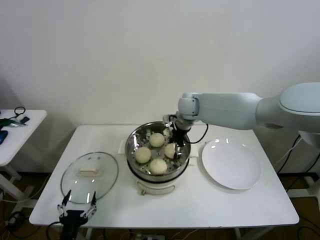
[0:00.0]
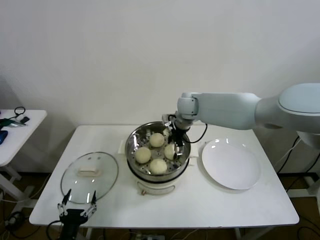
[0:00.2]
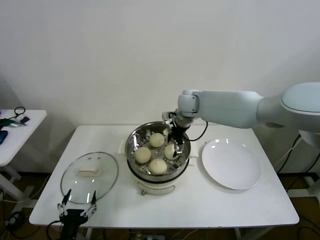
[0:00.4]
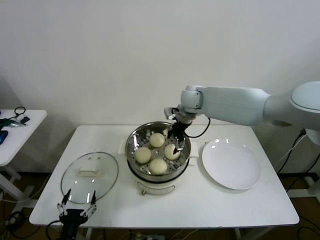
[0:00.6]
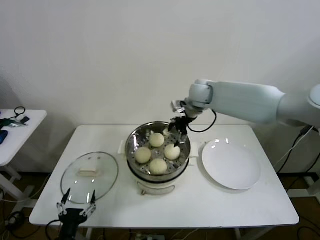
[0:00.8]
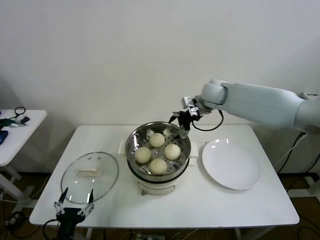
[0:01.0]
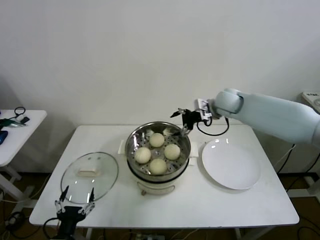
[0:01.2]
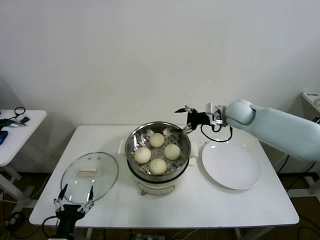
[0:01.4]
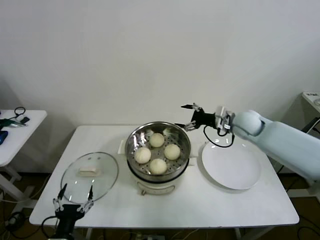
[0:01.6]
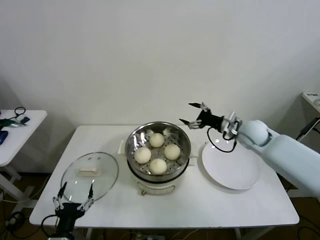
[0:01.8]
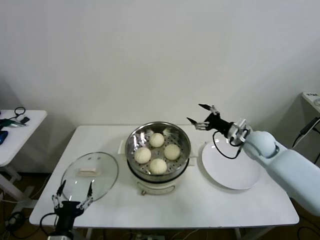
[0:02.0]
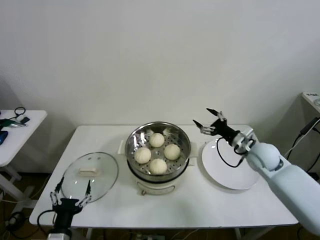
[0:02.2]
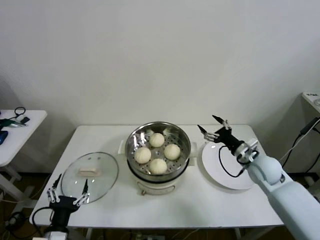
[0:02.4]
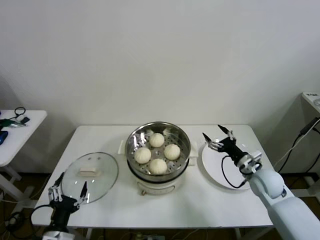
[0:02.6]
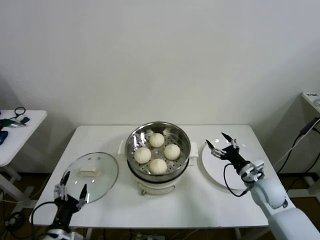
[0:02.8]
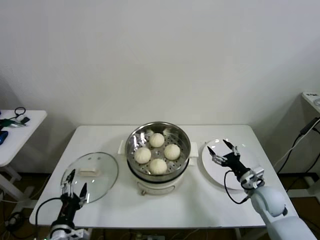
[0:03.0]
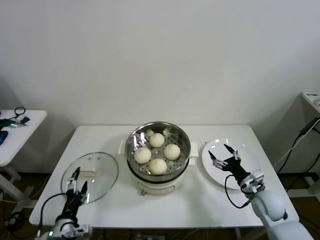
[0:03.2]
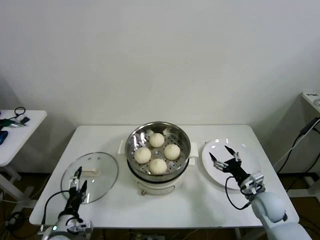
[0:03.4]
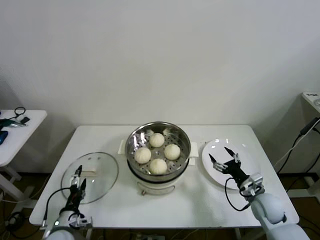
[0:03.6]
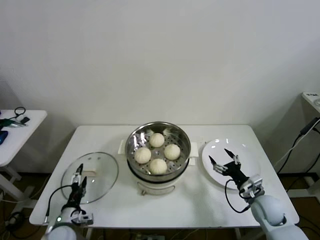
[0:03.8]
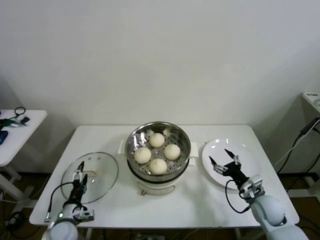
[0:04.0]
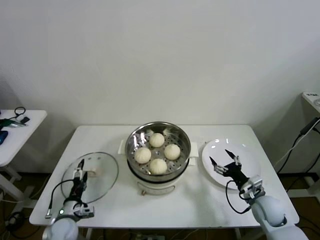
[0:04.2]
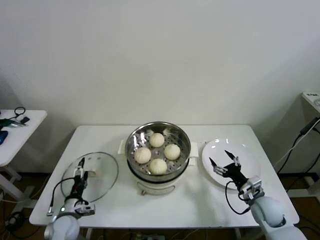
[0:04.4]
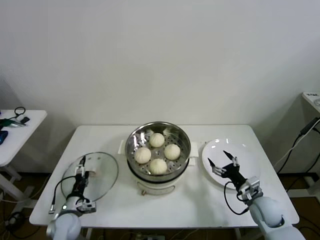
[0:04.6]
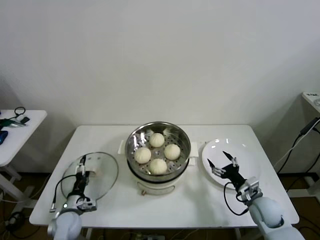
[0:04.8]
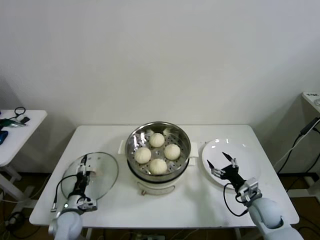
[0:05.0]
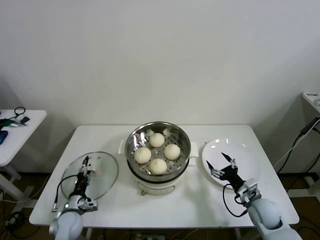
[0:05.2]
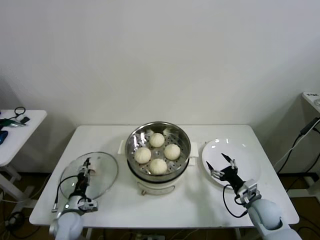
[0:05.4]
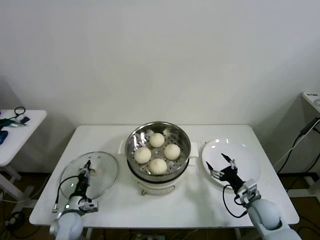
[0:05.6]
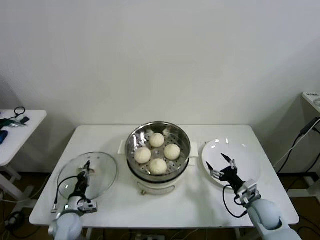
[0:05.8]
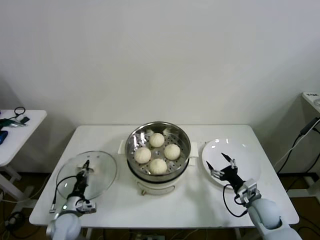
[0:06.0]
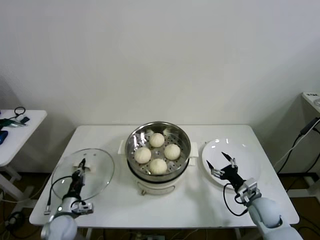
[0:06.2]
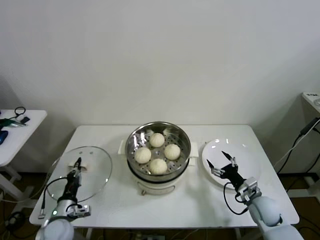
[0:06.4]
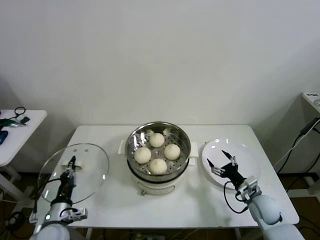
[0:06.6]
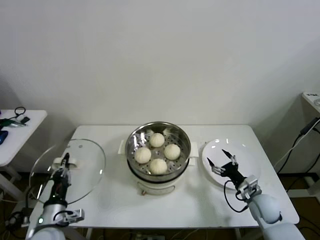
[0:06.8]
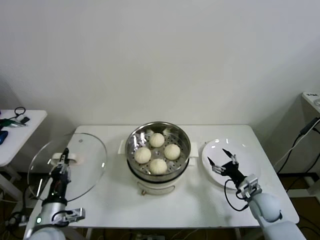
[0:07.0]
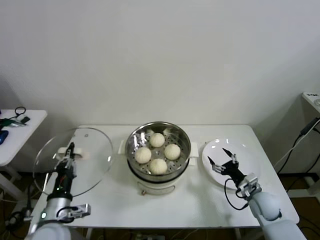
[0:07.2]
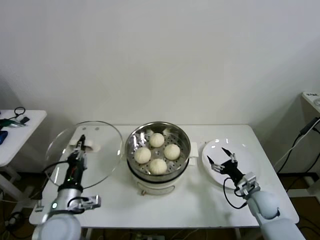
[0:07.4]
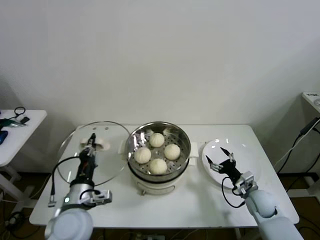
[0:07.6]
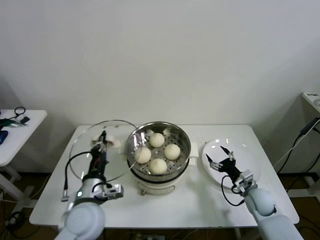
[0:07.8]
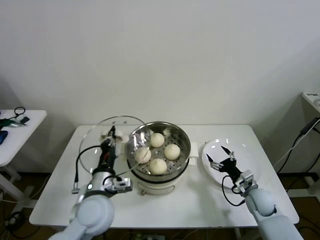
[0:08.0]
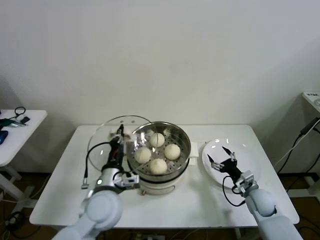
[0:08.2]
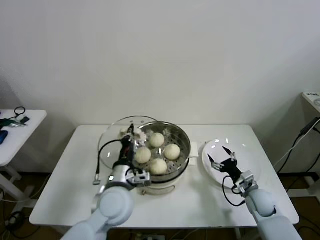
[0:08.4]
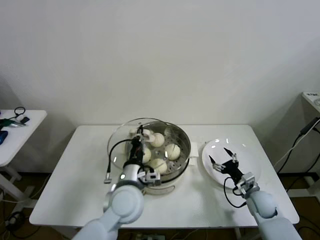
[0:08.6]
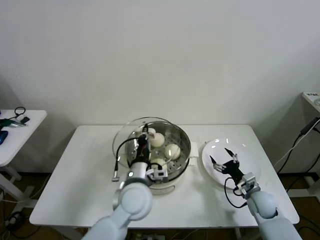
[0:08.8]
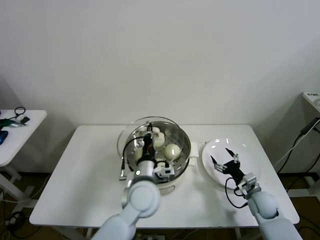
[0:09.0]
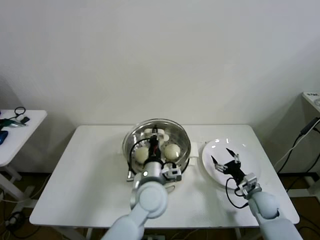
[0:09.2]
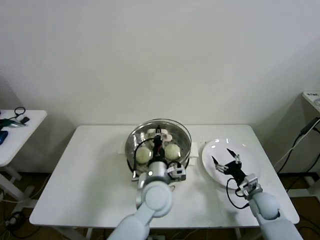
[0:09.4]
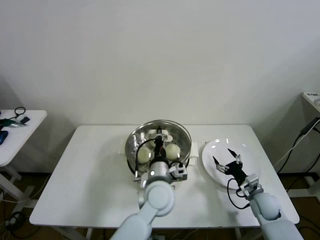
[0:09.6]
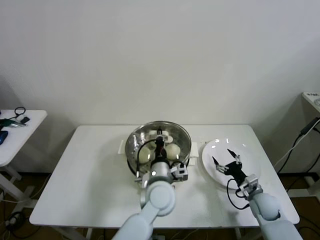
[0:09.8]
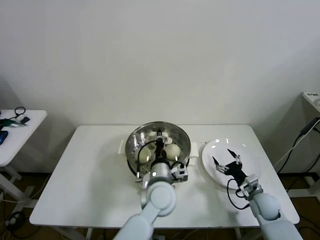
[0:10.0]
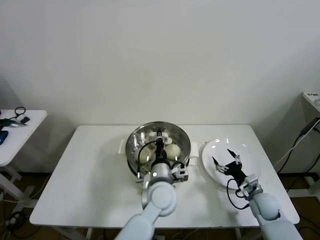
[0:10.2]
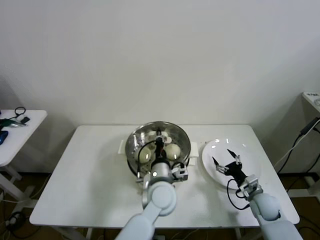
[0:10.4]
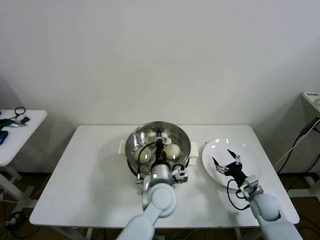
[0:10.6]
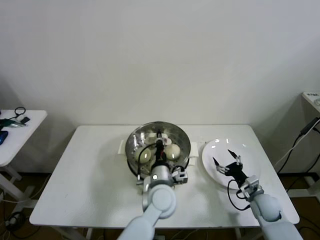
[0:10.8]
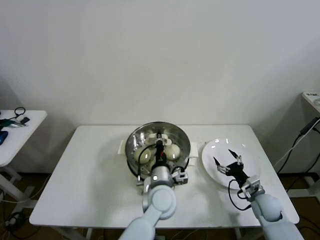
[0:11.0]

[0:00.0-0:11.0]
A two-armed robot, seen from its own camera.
Step, 0:00.2 to 0:05.6: Grasp the pot lid with left gripper.
0:00.0 to 0:01.6: The right gripper is displaced to the right by roughly 20 cm, and opens its fingers.
0:01.6 to 0:03.2: The left gripper heads forward, covering approximately 5 cm; the right gripper goes about 30 cm downward and backward.
0:03.2 to 0:04.8: The left gripper heads forward and downward, covering some 15 cm.
0:04.8 to 0:06.2: The left gripper closes up.
0:06.2 to 0:07.8: The left gripper moves upward and to the right, approximately 25 cm.
0:07.8 to 0:09.4: The left gripper goes roughly 20 cm to the right.
0:09.4 to 0:11.0: The grippers make only small movements.

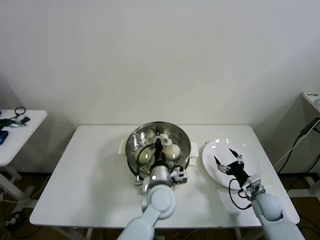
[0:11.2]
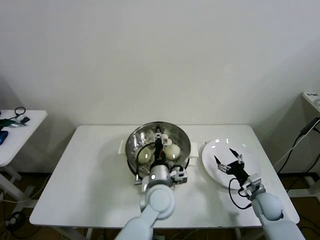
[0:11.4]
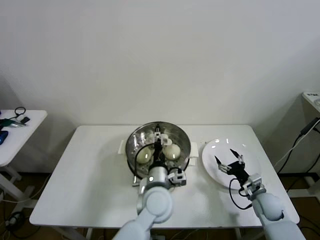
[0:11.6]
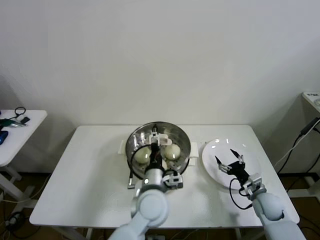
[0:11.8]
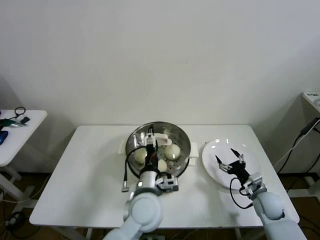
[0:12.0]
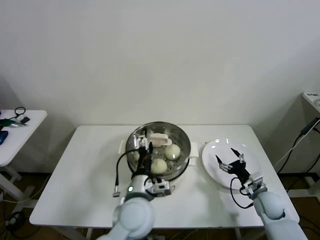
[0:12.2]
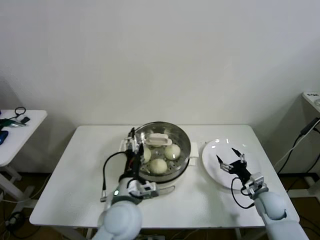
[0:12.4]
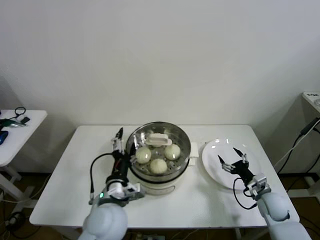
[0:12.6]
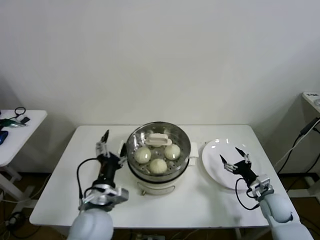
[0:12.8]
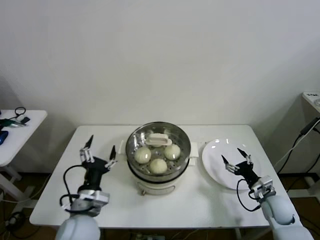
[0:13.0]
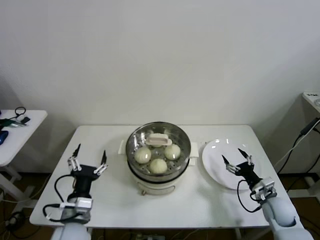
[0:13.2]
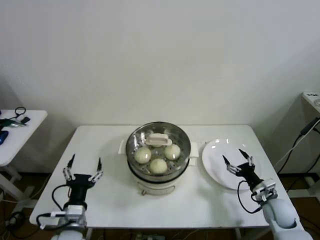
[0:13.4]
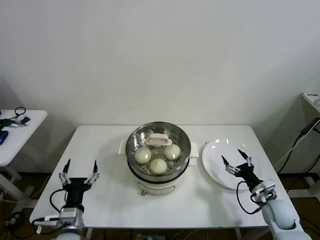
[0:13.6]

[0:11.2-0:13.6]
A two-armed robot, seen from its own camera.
0:11.2 to 0:12.4: The left gripper is displaced to the left and backward by about 10 cm, and opens.
0:12.4 to 0:13.6: The left gripper goes some 20 cm to the left and downward.

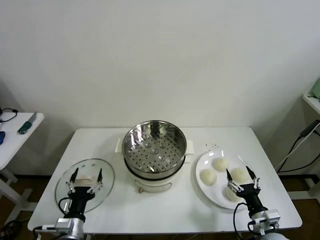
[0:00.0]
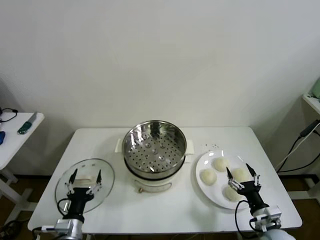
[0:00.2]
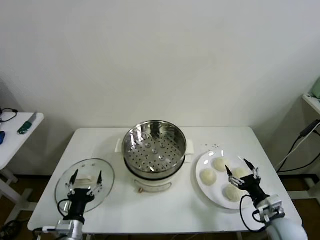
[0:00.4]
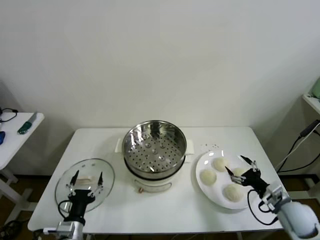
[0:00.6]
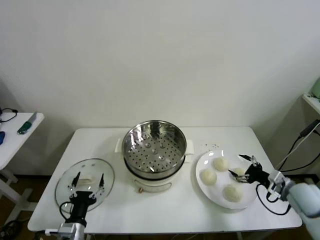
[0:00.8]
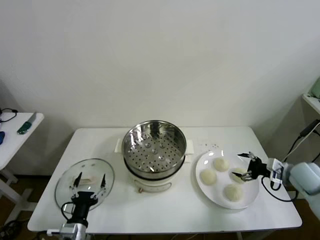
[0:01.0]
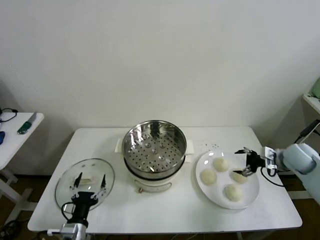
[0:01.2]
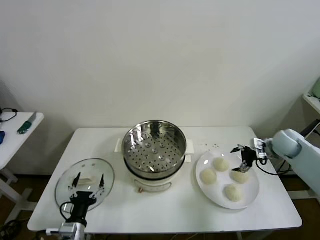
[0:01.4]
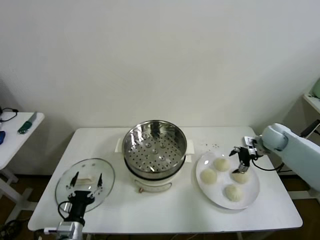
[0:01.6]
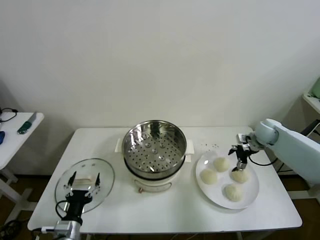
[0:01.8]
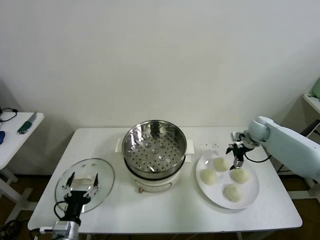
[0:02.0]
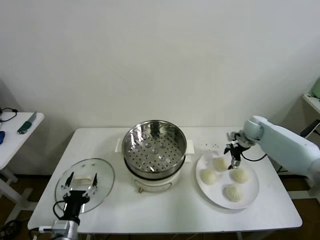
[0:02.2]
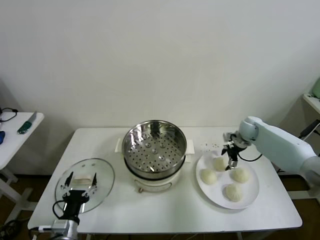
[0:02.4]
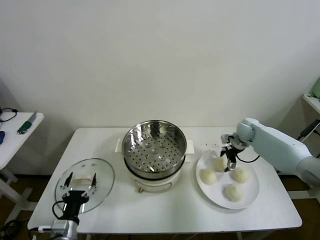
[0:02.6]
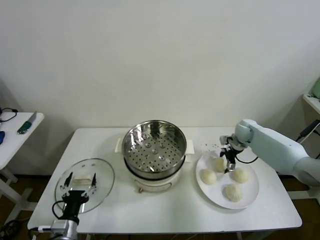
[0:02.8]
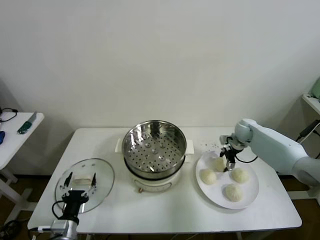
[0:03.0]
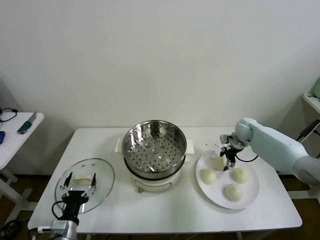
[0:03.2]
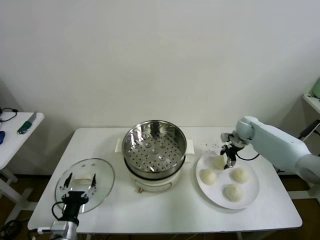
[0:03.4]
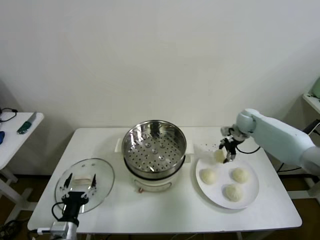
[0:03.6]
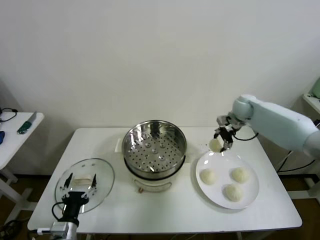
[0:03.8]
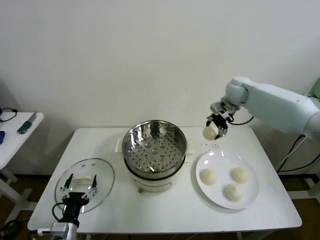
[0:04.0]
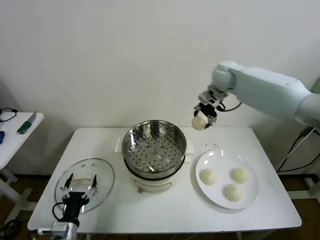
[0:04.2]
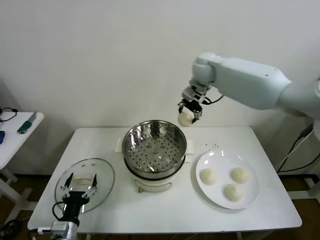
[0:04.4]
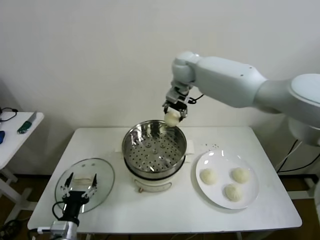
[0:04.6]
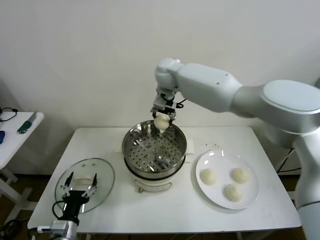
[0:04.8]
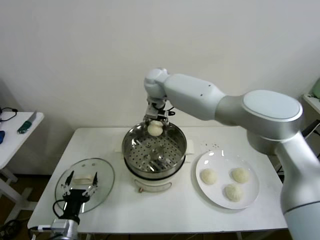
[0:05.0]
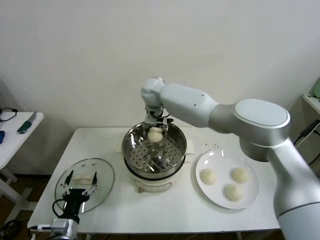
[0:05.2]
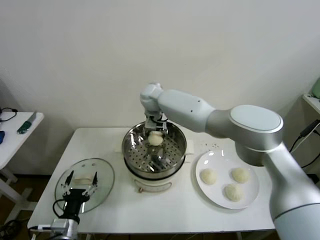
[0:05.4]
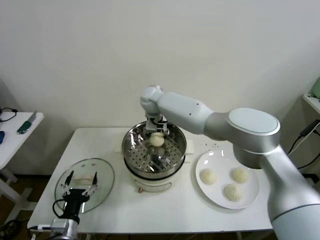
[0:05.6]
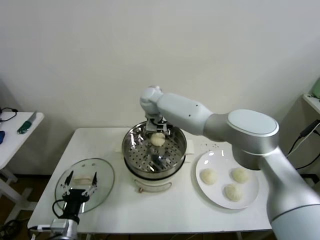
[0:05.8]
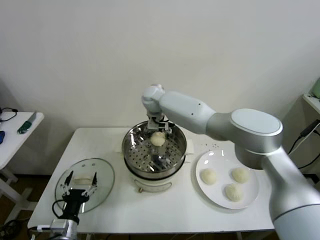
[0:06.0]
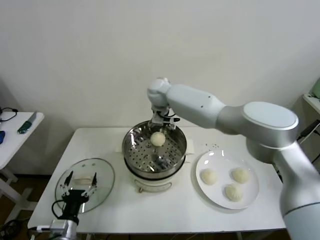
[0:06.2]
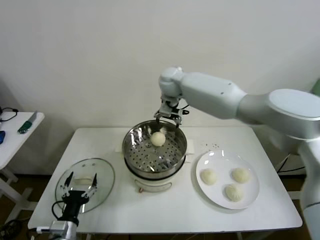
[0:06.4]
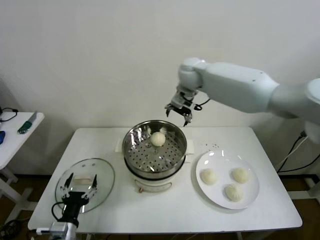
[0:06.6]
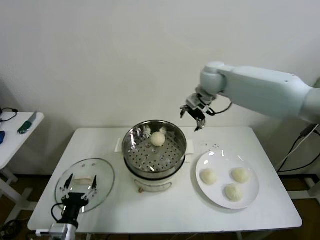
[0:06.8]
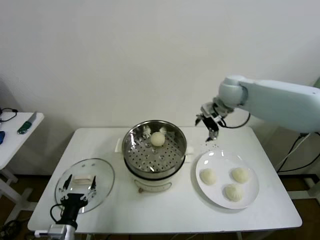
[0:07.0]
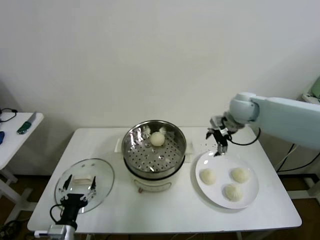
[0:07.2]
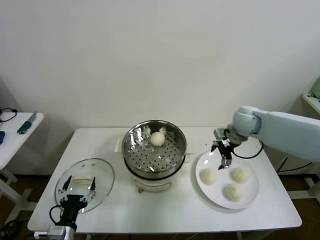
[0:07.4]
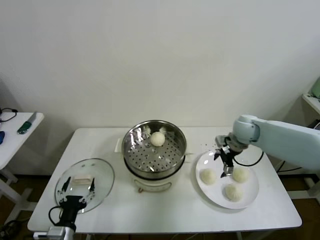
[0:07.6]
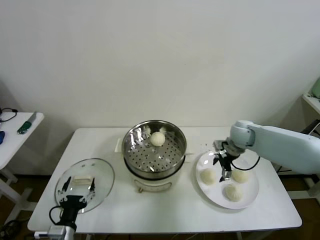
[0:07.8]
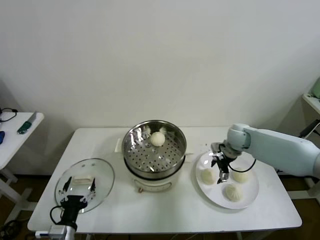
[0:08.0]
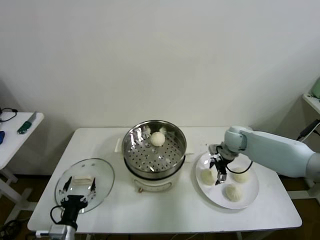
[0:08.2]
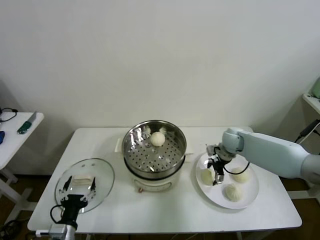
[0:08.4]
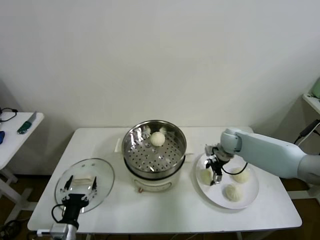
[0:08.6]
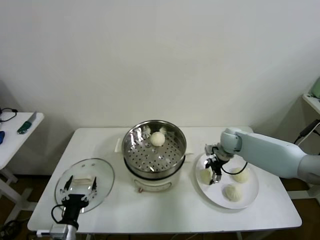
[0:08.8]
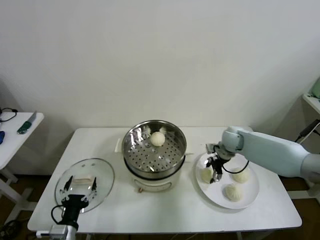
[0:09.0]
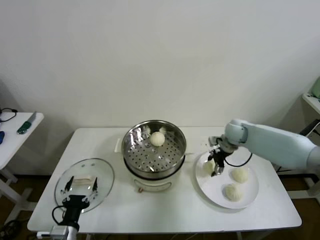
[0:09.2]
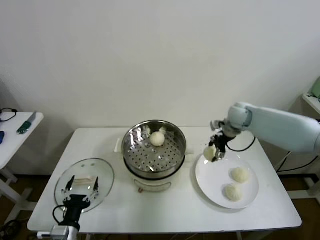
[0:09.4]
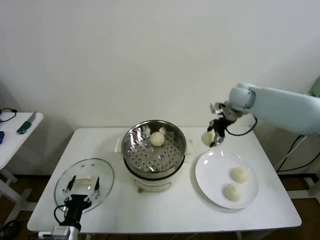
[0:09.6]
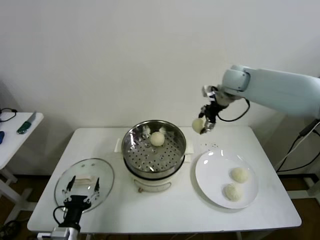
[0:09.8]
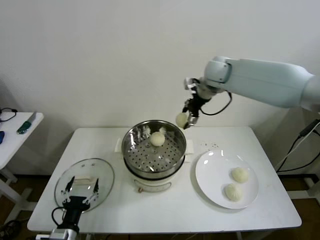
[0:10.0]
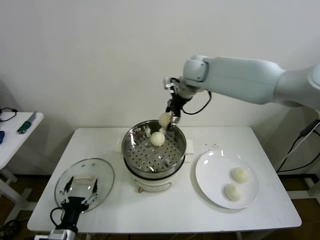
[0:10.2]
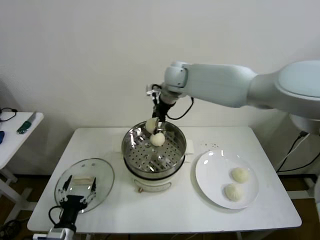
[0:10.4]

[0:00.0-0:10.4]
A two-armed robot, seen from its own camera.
Step, 0:00.0 to 0:03.2: Grasp the baozi in the plate with right gripper.
Step, 0:03.4 to 0:05.8: Place the baozi on the steamer with right gripper.
Step, 0:06.0 to 0:08.8: Grasp the baozi in the plate with right gripper.
0:01.4 to 0:03.0: The right gripper heads forward and to the left, covering approximately 15 cm, and closes up.
0:03.0 to 0:04.4: The right gripper goes roughly 35 cm upward and to the left, and closes its fingers.
0:04.4 to 0:06.0: The right gripper moves to the left and downward, some 20 cm, and opens its fingers.
0:06.0 to 0:07.4: The right gripper is displaced to the right by some 30 cm.
0:07.4 to 0:09.0: The right gripper shifts some 10 cm downward, and closes its fingers.
0:09.0 to 0:10.4: The right gripper goes about 35 cm upward and to the left.
